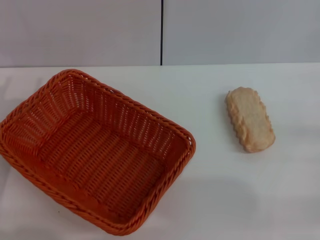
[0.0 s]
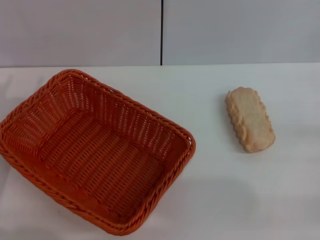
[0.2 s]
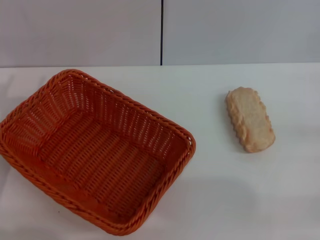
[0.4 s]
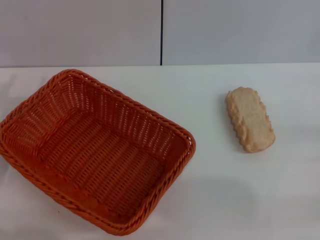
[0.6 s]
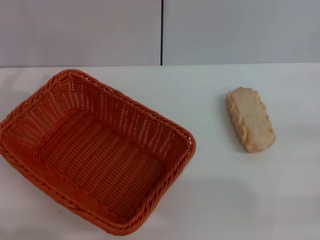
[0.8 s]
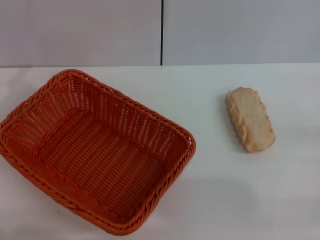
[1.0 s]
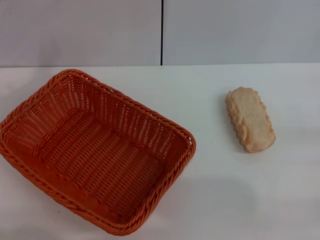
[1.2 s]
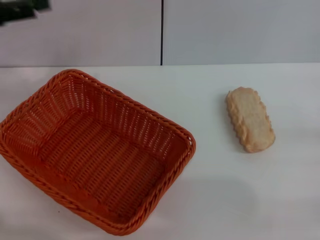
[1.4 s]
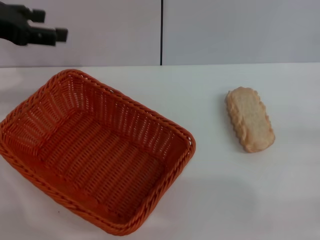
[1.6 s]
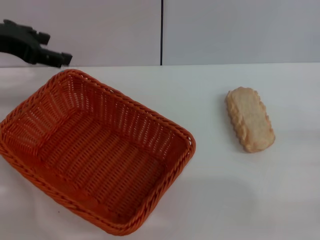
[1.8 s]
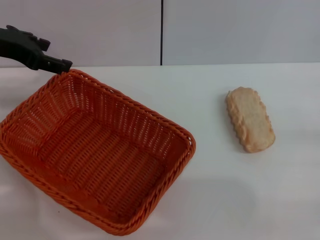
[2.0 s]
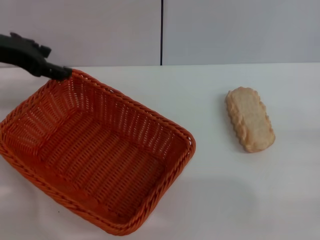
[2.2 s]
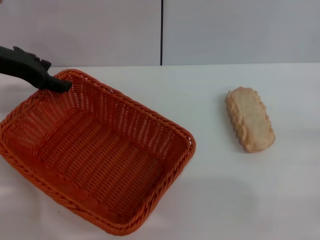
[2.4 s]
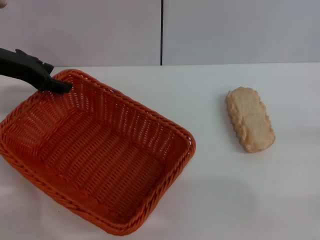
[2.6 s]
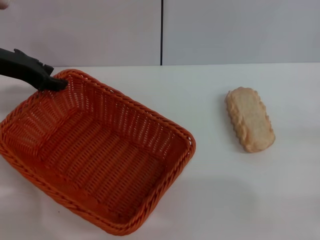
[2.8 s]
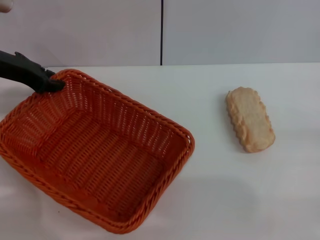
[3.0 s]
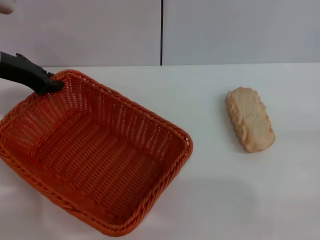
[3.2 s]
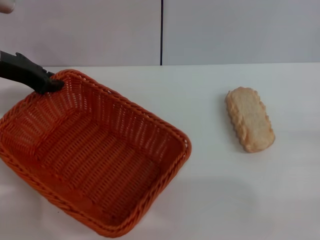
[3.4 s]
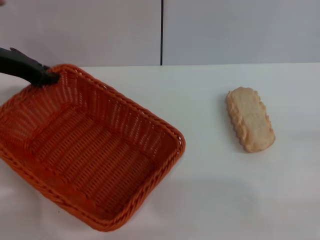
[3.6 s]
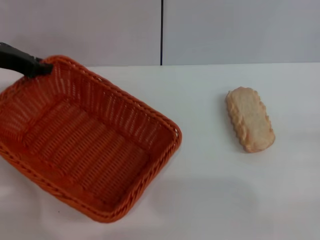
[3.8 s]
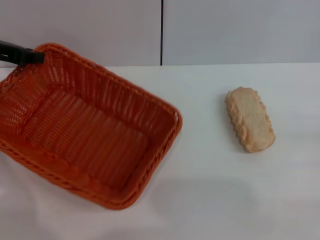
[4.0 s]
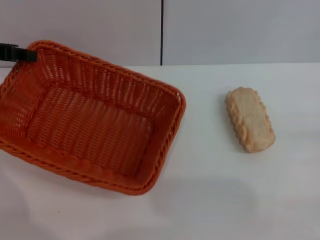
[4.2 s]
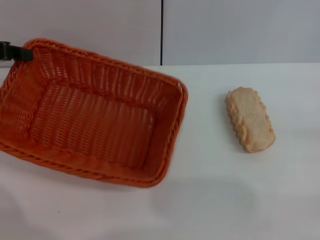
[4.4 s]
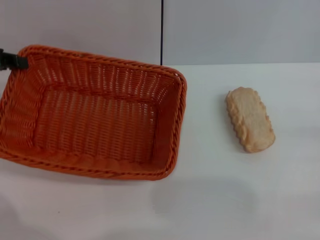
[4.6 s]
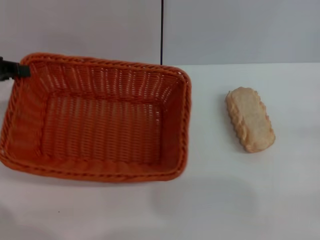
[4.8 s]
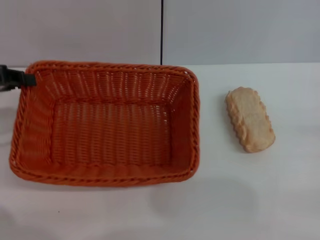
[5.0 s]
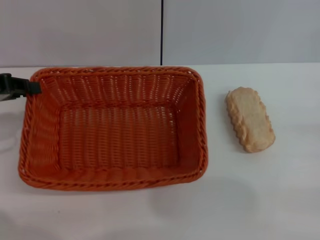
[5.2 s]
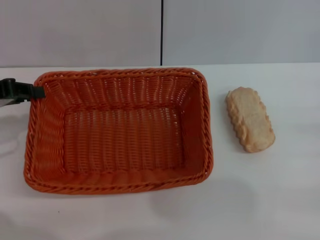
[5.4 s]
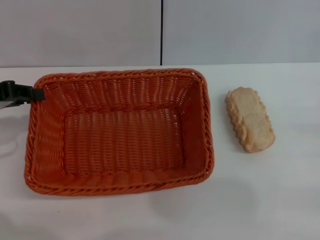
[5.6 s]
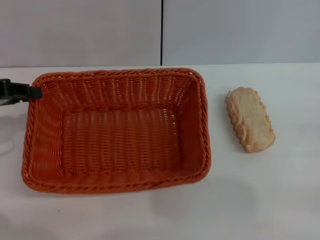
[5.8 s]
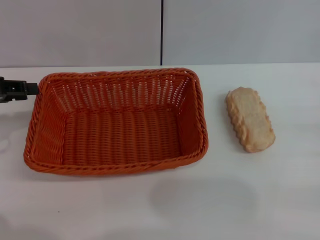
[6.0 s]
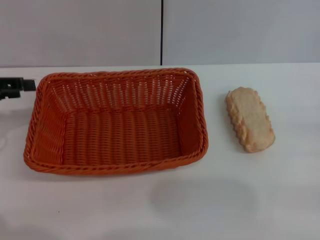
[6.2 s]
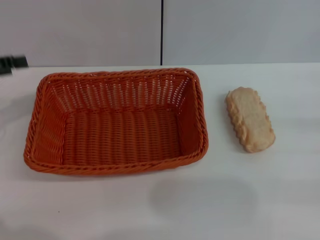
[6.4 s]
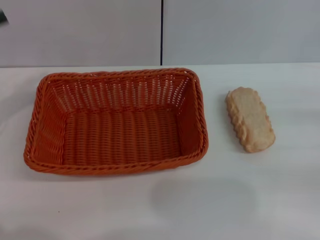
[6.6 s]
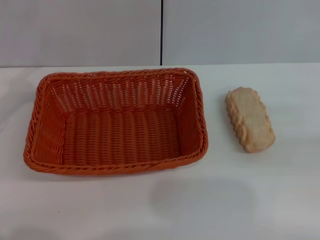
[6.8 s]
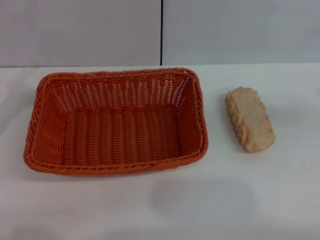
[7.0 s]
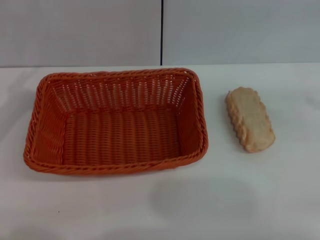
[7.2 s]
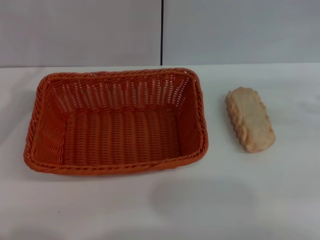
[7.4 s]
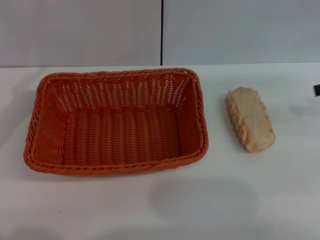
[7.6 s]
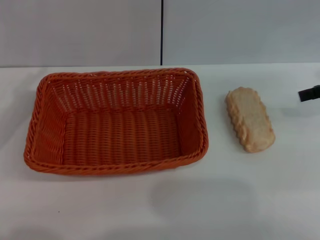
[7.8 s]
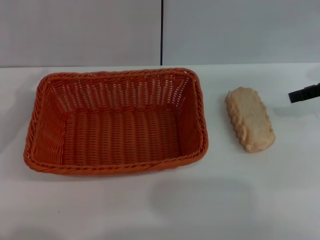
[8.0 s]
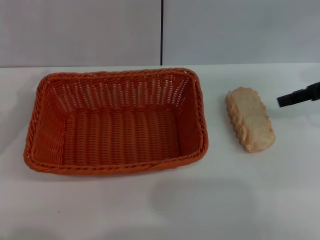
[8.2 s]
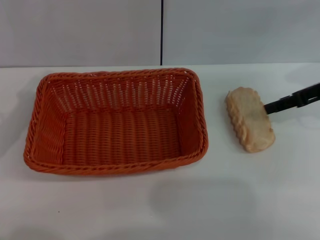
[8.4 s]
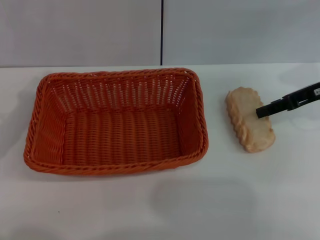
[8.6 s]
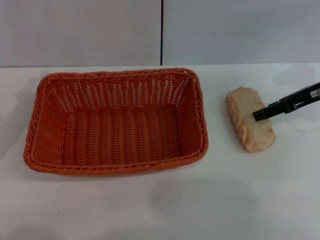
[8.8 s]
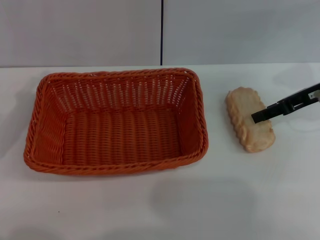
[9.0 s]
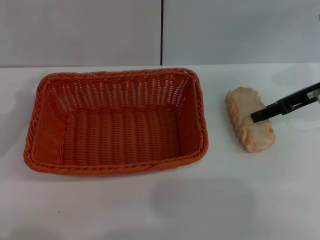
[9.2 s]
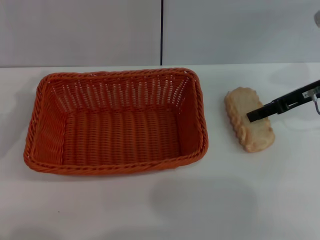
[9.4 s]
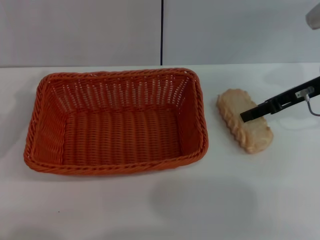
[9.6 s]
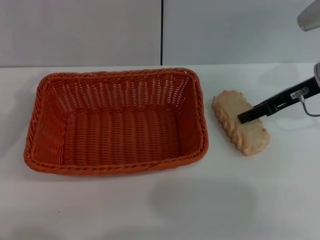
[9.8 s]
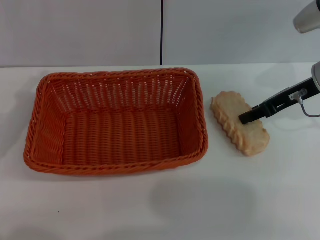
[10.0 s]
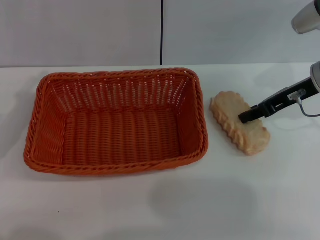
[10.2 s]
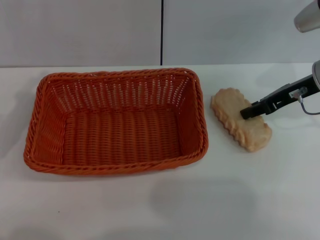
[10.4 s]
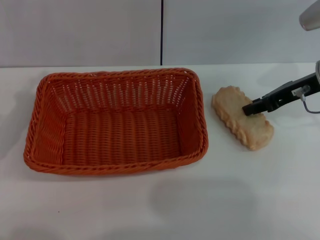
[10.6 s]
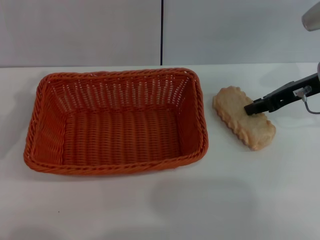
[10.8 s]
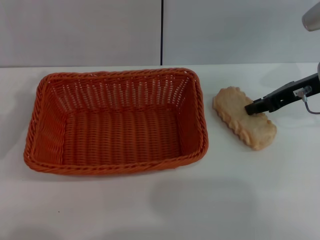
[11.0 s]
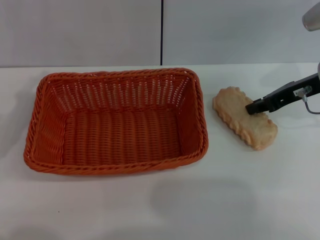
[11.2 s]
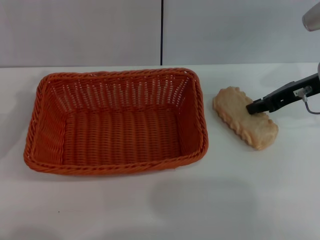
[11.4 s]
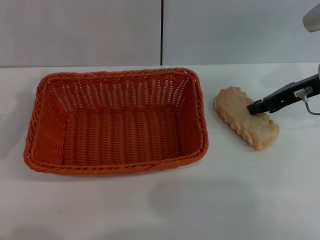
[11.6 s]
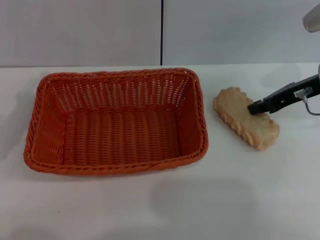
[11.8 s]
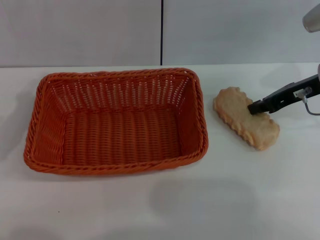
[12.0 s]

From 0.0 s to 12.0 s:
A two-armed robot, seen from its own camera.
Step, from 0.0 s to 4.4 s: Pick up the light basket with the left gripper.
Step, from 4.6 s to 6.4 s: Place the light basket in the center of view with the left gripper.
From 0.0 s to 1.6 s: The left gripper heads upward and forward, covering some 20 cm.
From 1.6 s to 3.0 s: The left gripper travels downward by some 5 cm, and closes its fingers.
From 3.0 s to 4.4 s: The left gripper travels to the left by some 5 cm, and closes its fingers.
From 4.4 s to 6.0 s: The left gripper ends up roughly 5 cm from where it was.
From 6.0 s to 7.6 s: The right gripper heads upward and forward, covering about 20 cm. Meanwhile the left gripper ends up approximately 5 cm from where it was, and opens.
From 7.6 s to 9.0 s: The right gripper moves to the left and downward, about 10 cm.
From 9.0 s to 10.4 s: The right gripper closes its fingers.
From 10.4 s to 12.0 s: The right gripper closes its fingers.

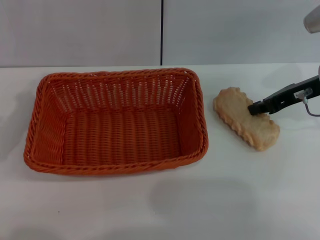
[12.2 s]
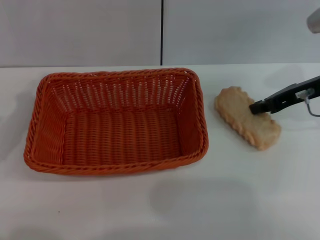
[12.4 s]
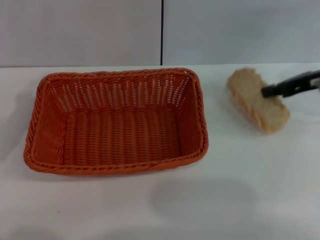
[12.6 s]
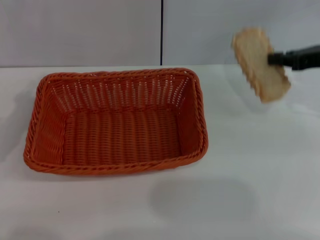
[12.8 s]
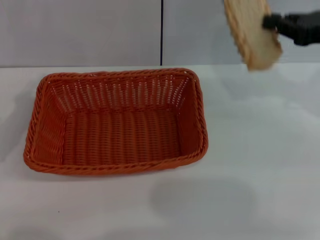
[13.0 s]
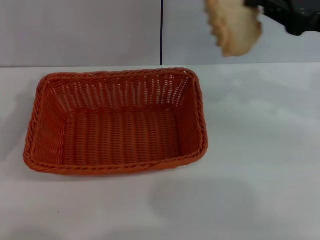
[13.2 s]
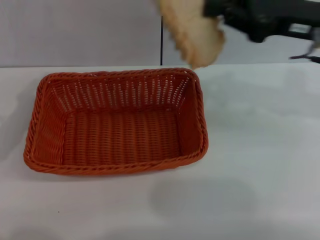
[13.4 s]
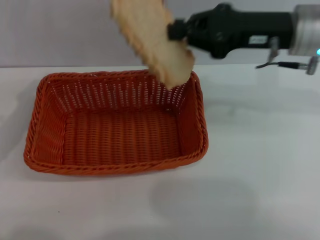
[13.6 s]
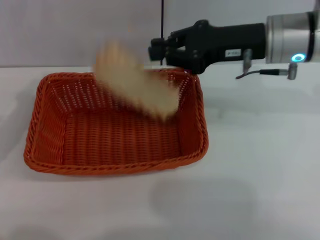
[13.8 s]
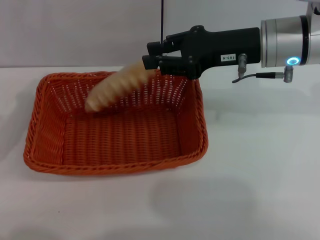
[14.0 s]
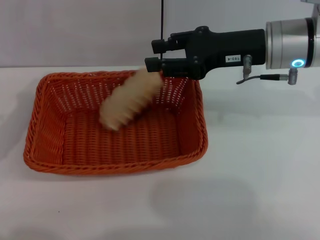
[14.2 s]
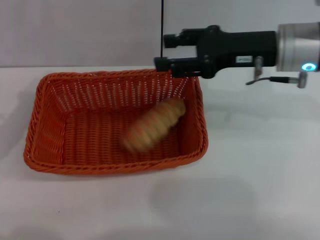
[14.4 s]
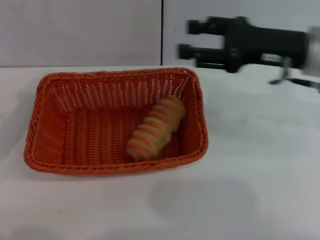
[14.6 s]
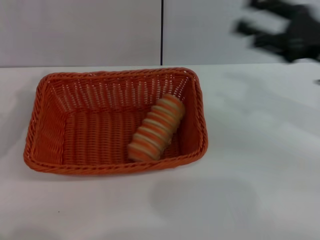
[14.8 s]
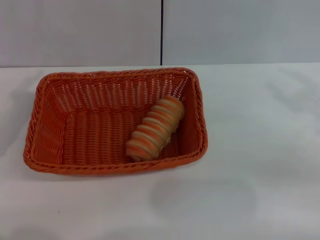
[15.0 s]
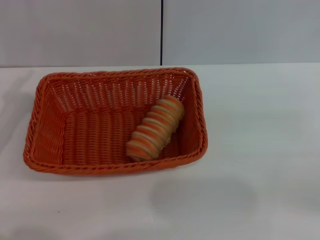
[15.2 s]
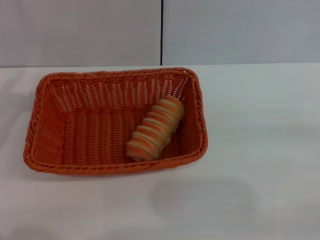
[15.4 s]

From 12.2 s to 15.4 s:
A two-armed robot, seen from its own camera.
Step, from 13.0 s to 14.2 s: Place the long bread into the light basket with the right gripper.
From 12.2 s to 13.8 s: The right gripper moves to the left, approximately 10 cm.
From 13.8 s to 15.4 s: The right gripper is displaced to the right and backward by roughly 30 cm, and opens its fingers.
